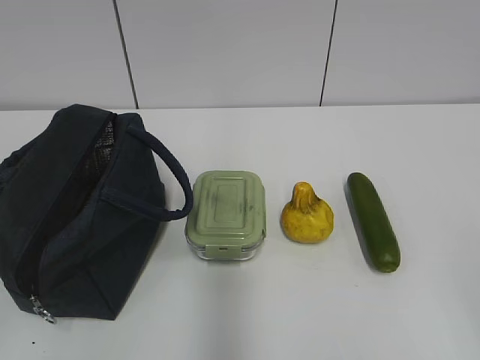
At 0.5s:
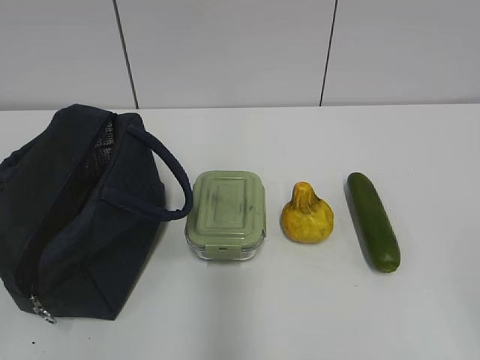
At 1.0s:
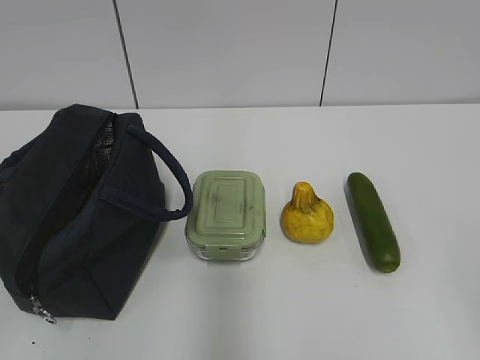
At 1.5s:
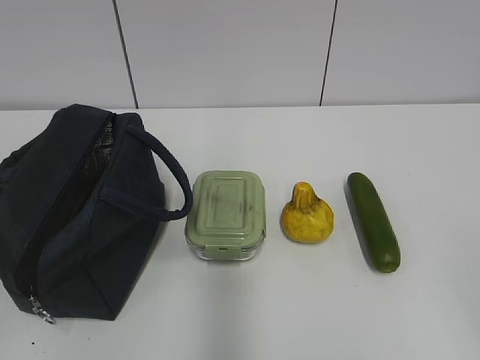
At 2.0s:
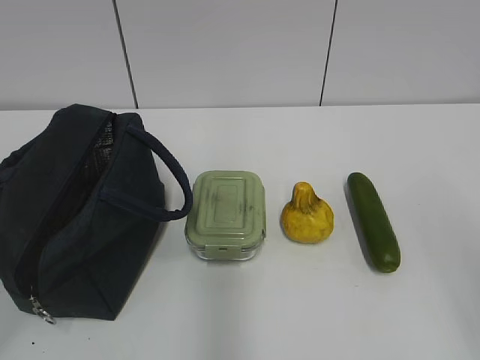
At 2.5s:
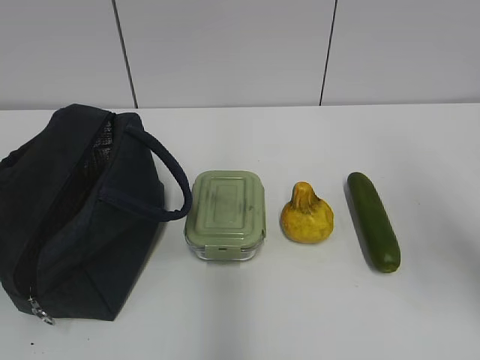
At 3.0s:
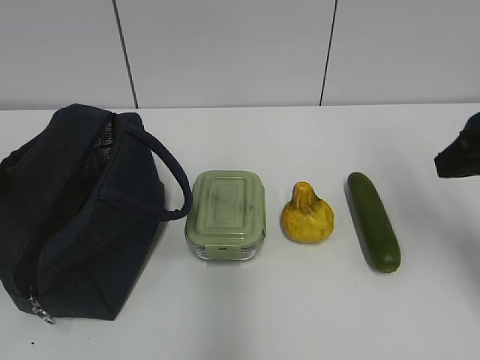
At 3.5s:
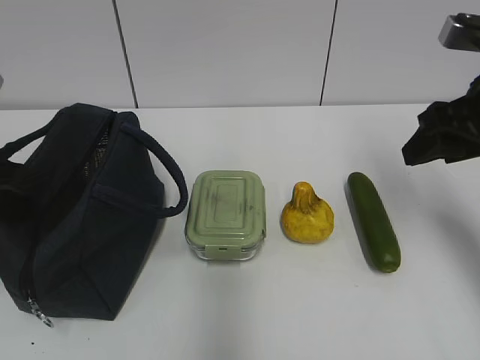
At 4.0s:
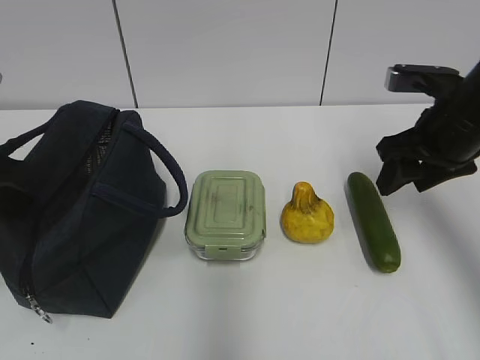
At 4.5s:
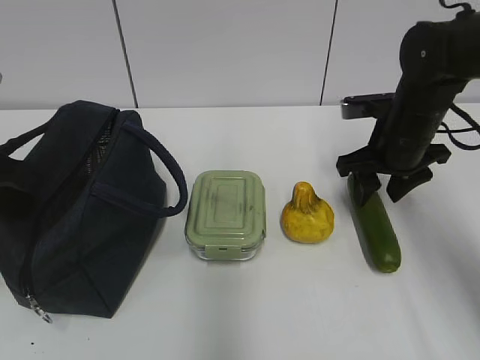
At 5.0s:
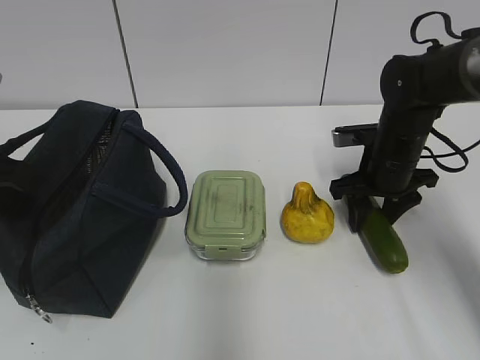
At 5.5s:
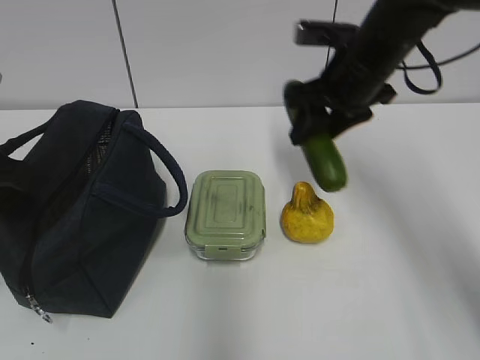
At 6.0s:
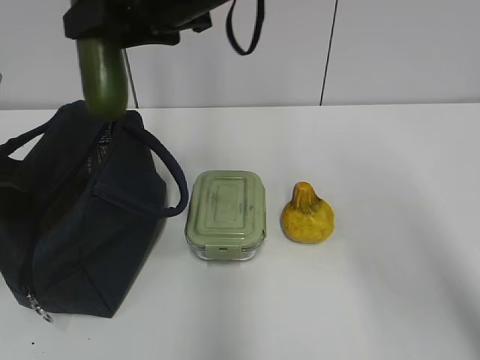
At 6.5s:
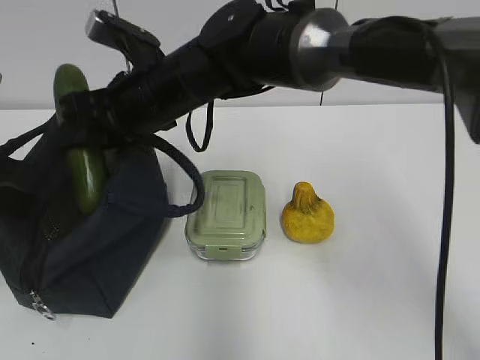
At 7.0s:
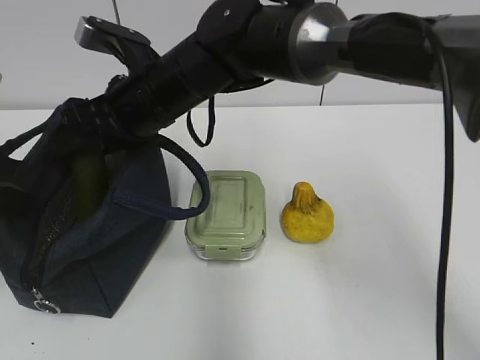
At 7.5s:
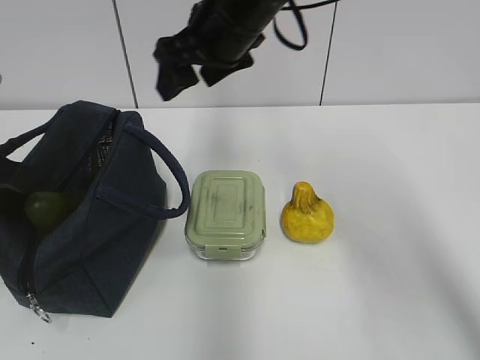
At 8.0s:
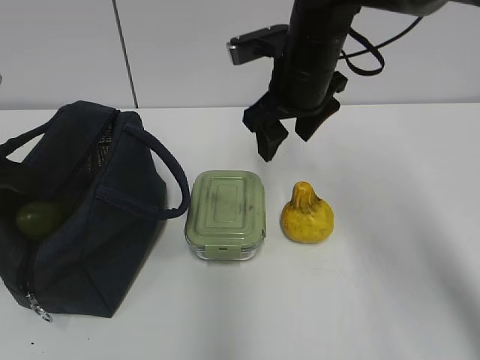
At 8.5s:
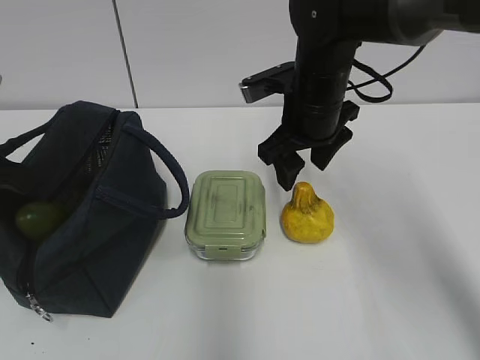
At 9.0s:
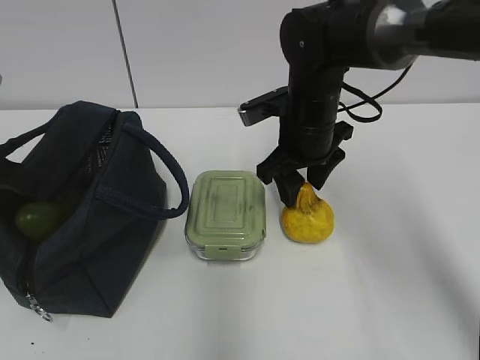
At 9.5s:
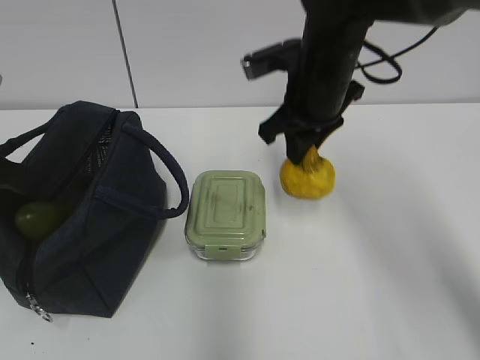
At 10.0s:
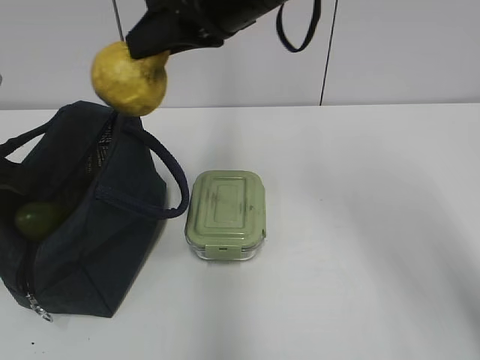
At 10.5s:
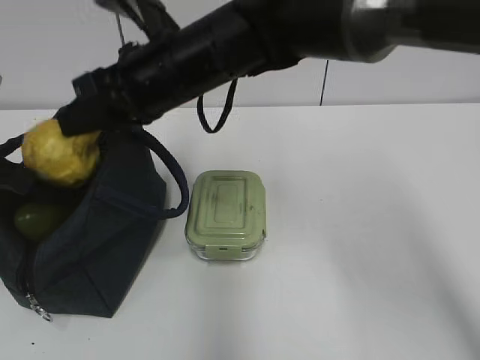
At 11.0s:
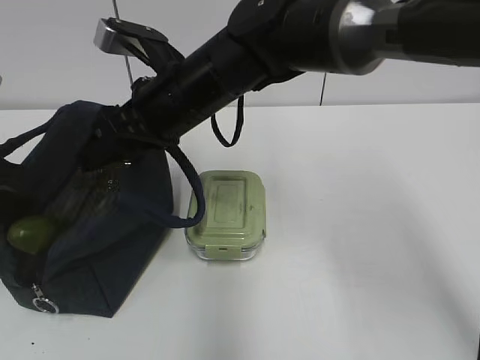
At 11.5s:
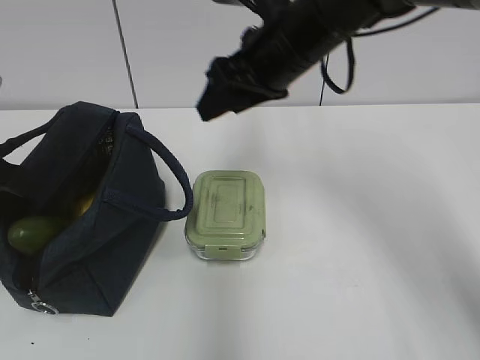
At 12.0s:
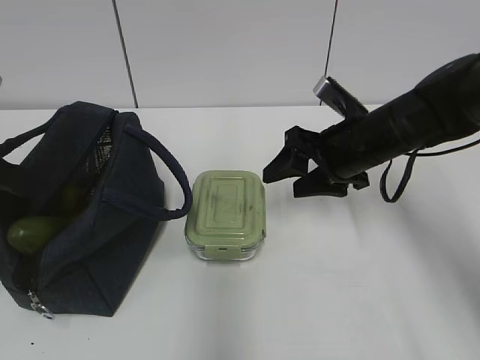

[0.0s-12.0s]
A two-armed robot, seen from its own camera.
Step, 0.0s to 4.5s: Grab the cucumber with your right hand.
Step, 7.5s to 9.0s: Grab the pear with your right hand.
Step, 9.5s to 11.0s: Place it into the bag with your right hand.
2.0s to 4.0s: The right gripper is displaced forward by approximately 30 cm; the left gripper moves forward and downward, roughly 20 cm, and closes its fingers.
4.0s to 6.0s: The right gripper goes about 30 cm to the left and upward.
6.0s to 8.0s: The right gripper heads to the right and downward, covering roughly 15 cm, and opens up.
8.0s to 10.0s: The right gripper is displaced upward and to the left by roughly 10 cm, and closes.
10.0s to 12.0s: The right gripper heads downward and to the right, covering about 20 cm, and opens its fingers.

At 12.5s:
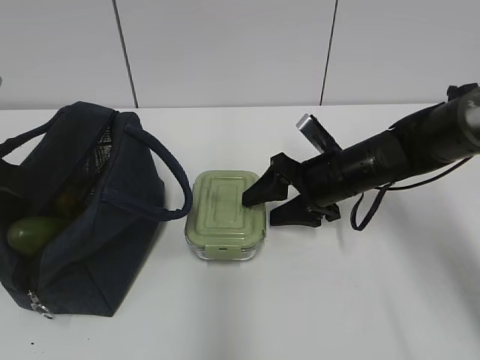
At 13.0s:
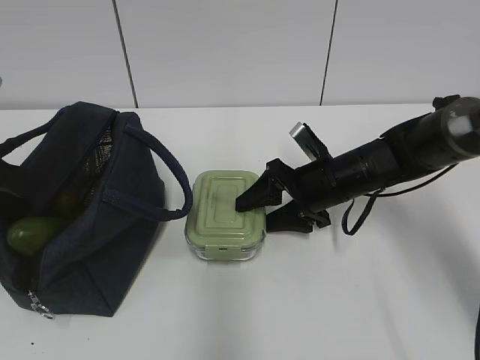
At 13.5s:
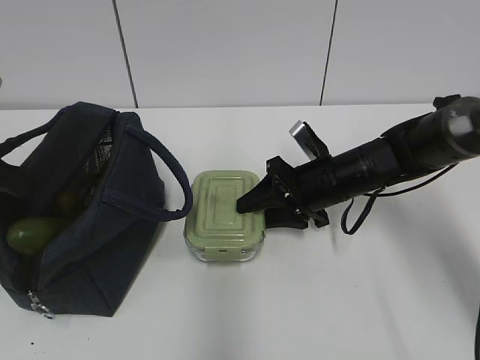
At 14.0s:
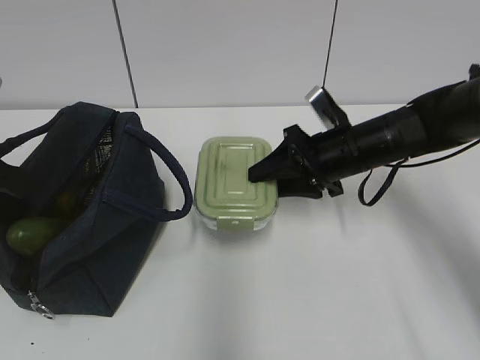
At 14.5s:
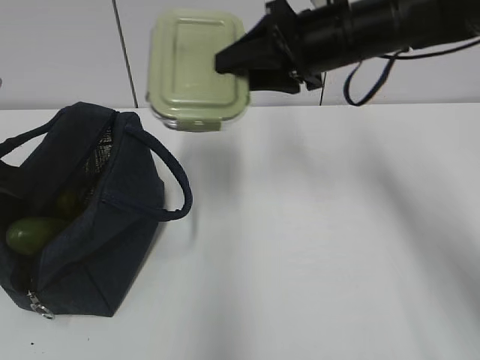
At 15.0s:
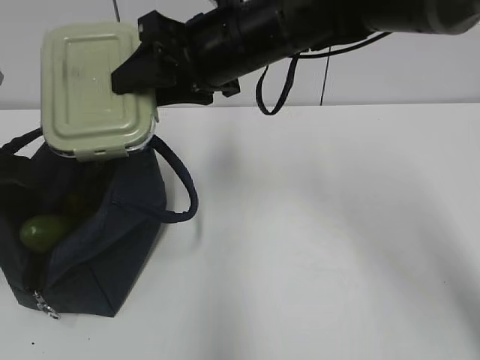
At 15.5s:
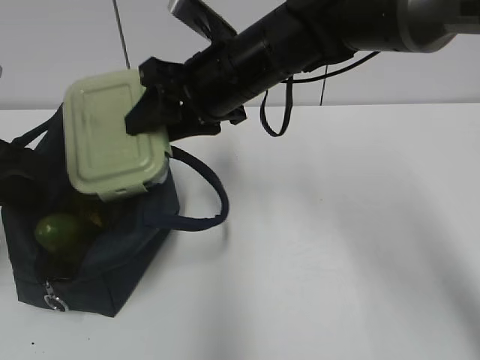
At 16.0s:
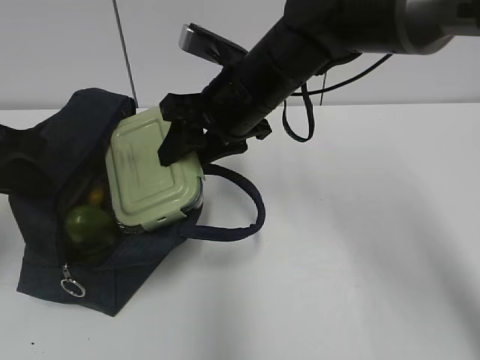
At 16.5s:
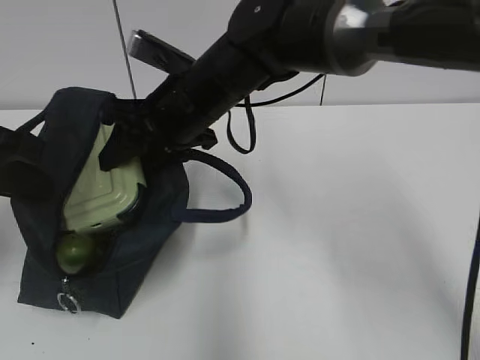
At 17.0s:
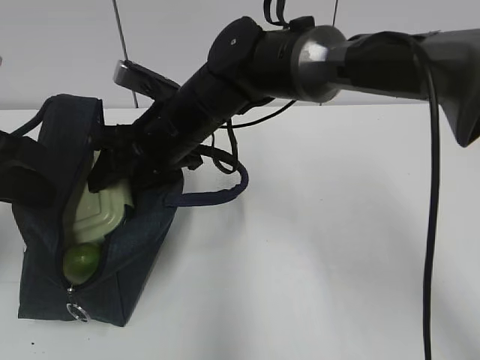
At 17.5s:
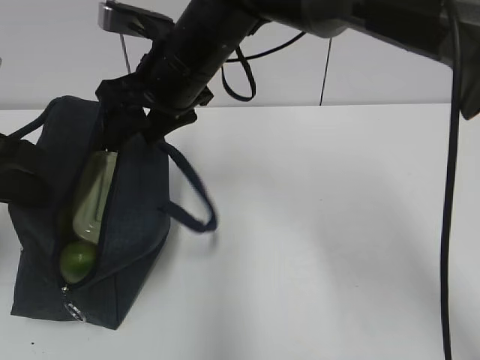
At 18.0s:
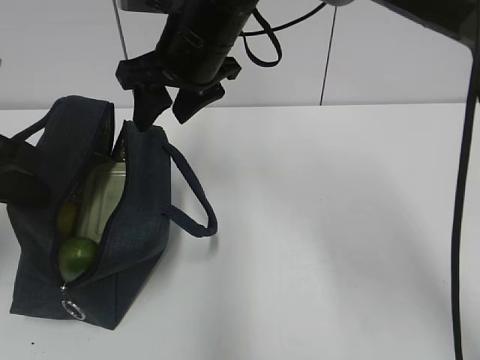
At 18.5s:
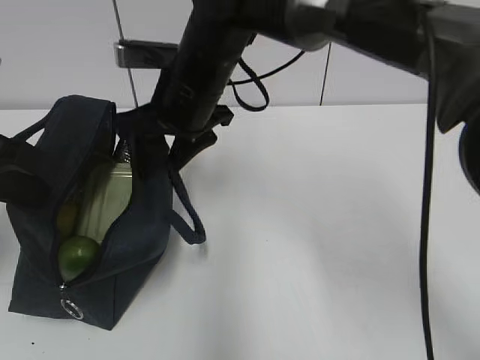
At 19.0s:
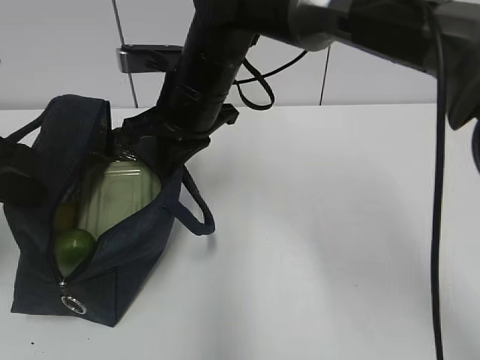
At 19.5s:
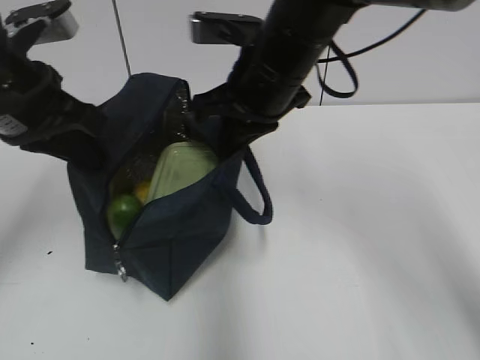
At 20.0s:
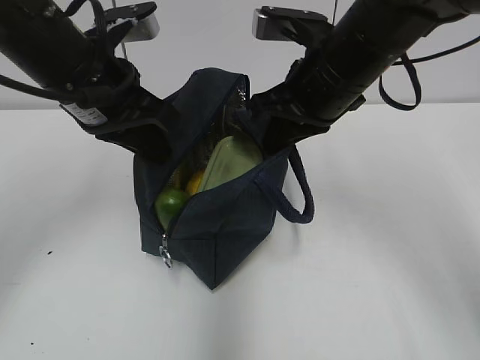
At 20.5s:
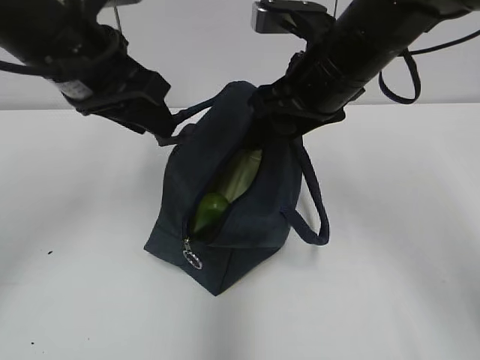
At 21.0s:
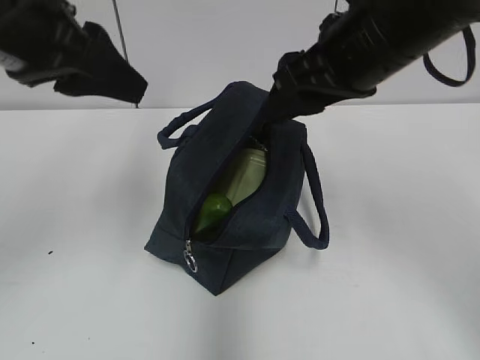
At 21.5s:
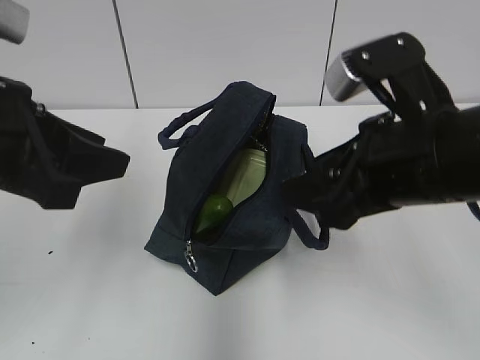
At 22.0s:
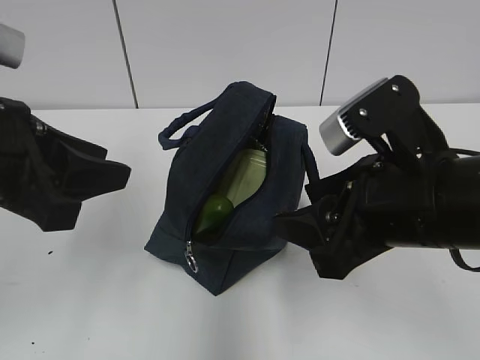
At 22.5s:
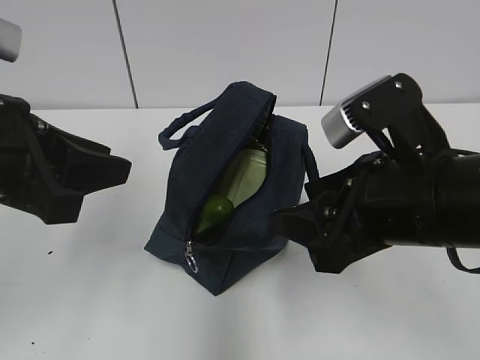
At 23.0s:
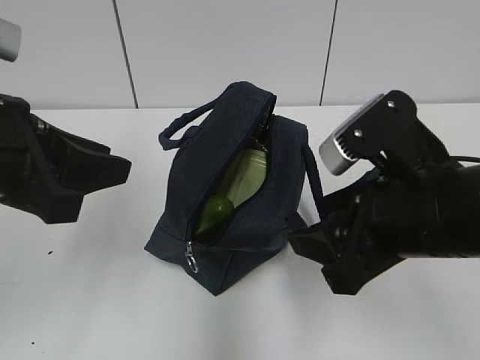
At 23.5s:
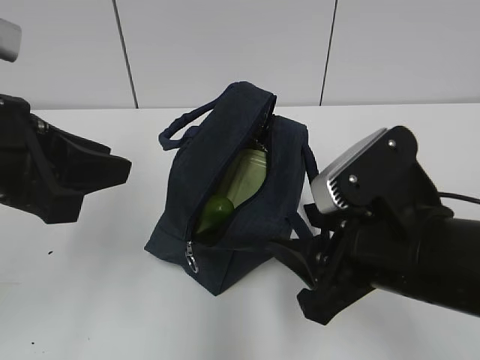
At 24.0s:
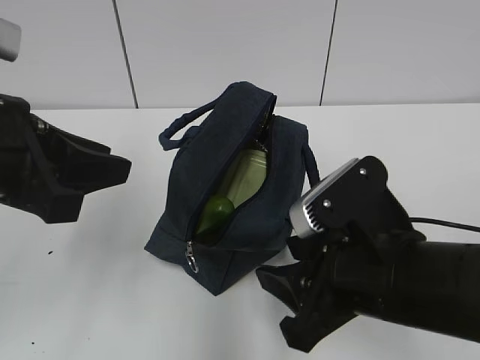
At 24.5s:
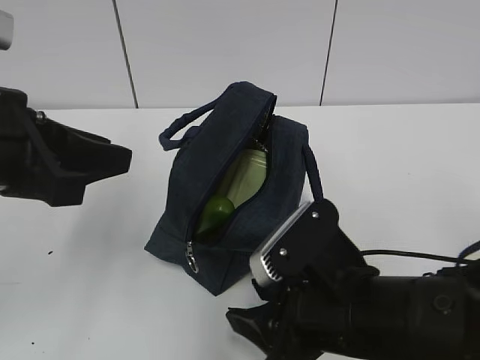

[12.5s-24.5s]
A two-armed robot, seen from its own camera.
Step, 13.5s to 17.5s: Place it into the bag with your right hand.
Step, 18.0s to 19.0s: Grab the lunch bag with your right hand.
Step, 19.5s to 20.0s: Move the lunch bag to the right.
12.5s to 14.5s: The right gripper is displaced upward by about 20 cm.
14.5s to 16.5s: The right gripper shifts about 15 cm to the left.
16.5s to 18.5s: The right gripper travels upward and back again, approximately 5 cm each way.
18.5s to 20.5s: The right gripper goes some 15 cm to the right, and closes, then reopens. The left gripper moves to the right and forward, some 10 cm, and opens up.
20.5s to 22.5s: The two grippers go approximately 15 cm backward.
22.5s to 24.5s: The right gripper is displaced downward by some 10 cm.

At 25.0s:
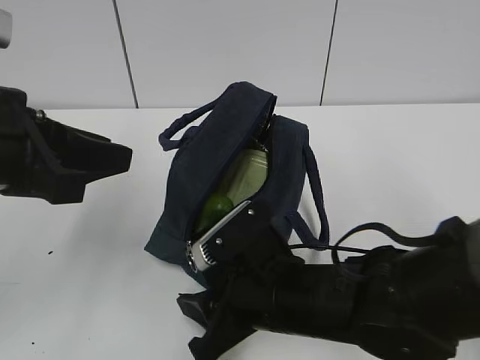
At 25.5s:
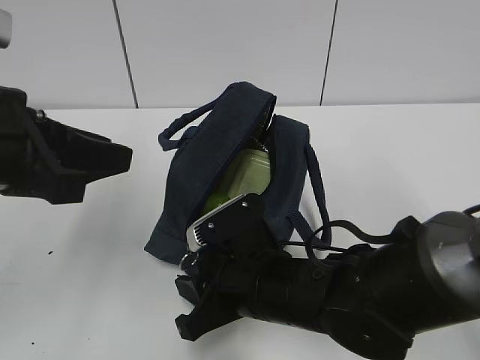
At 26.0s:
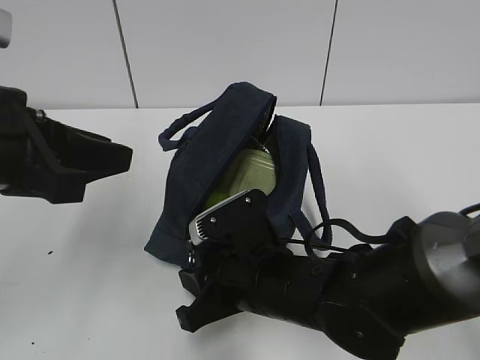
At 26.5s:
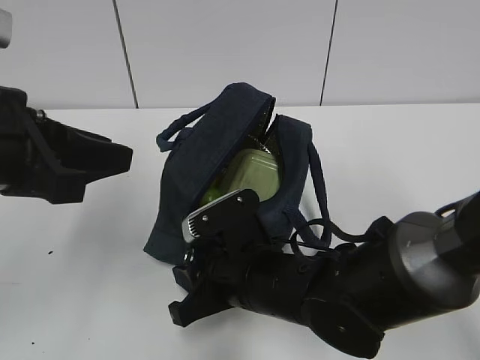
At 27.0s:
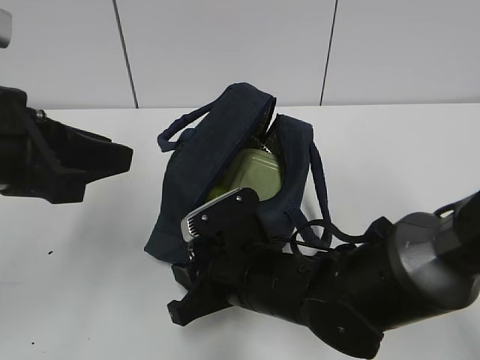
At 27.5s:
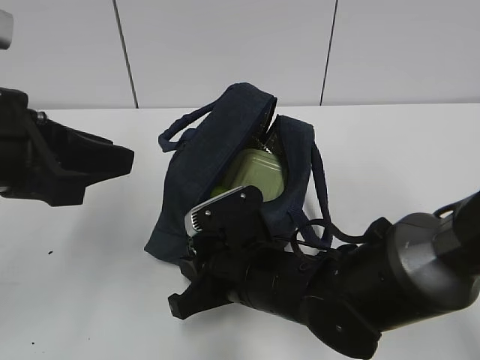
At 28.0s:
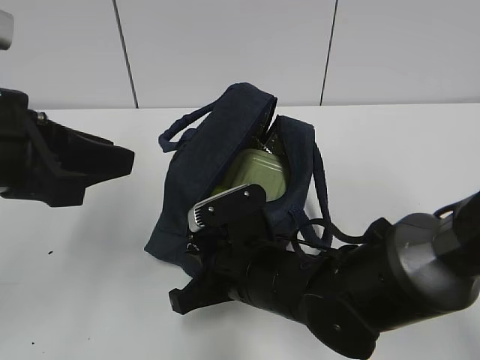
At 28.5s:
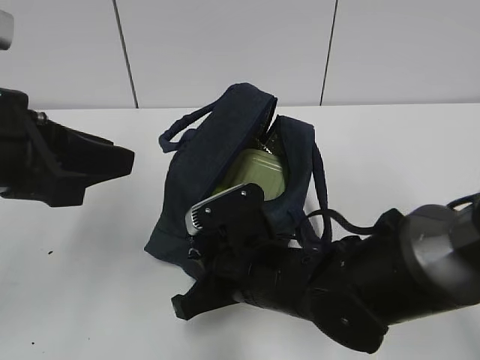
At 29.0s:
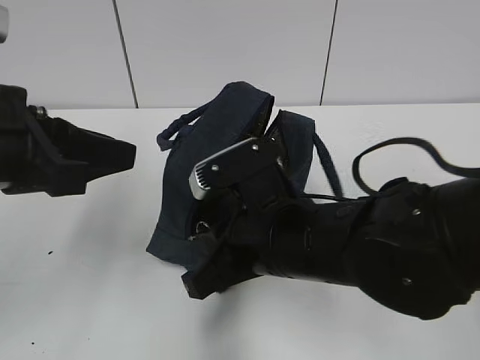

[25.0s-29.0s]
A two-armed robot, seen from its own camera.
25.0s to 27.0s: There are only small adjustments of the grippers.
27.0s to 29.0s: The right gripper heads upward, covering approximately 10 cm, and closes up.
